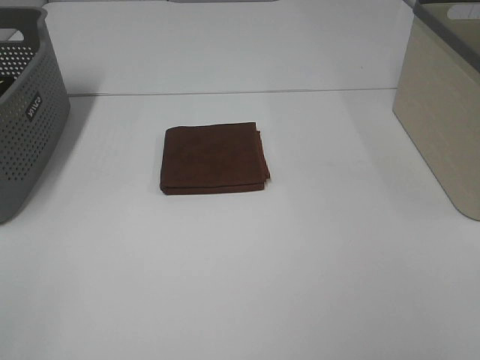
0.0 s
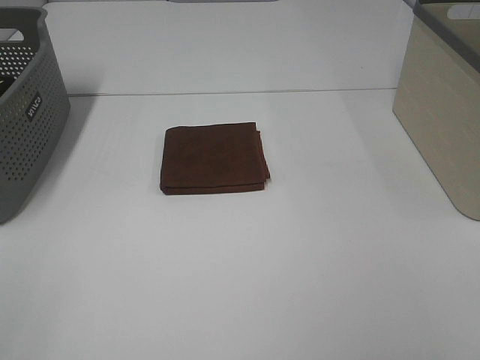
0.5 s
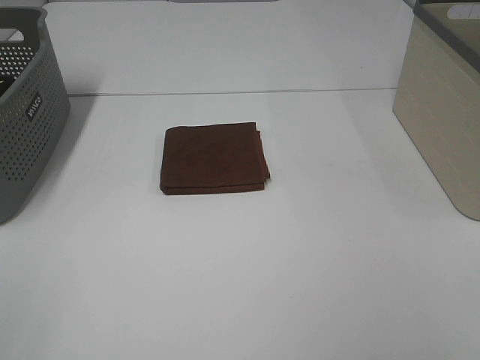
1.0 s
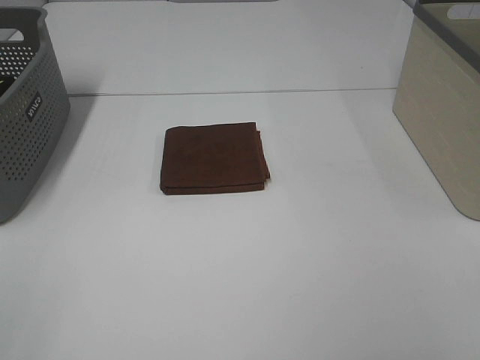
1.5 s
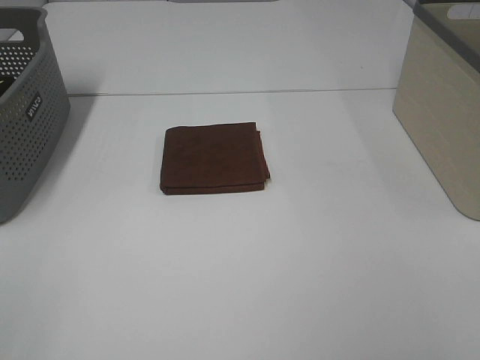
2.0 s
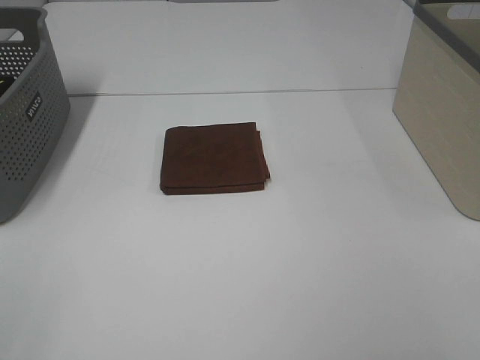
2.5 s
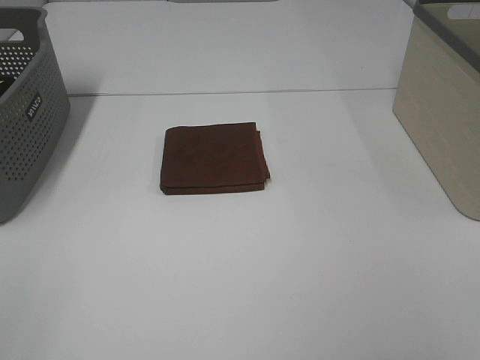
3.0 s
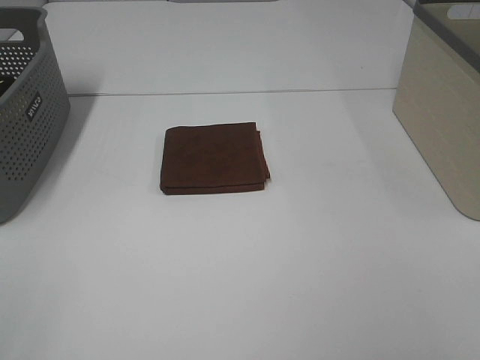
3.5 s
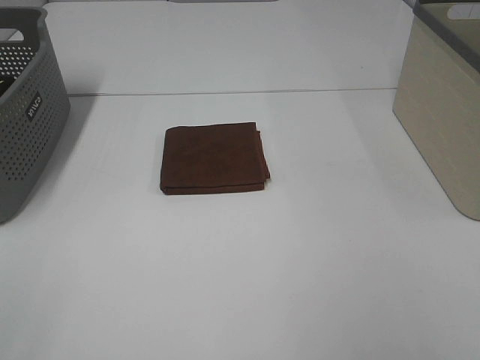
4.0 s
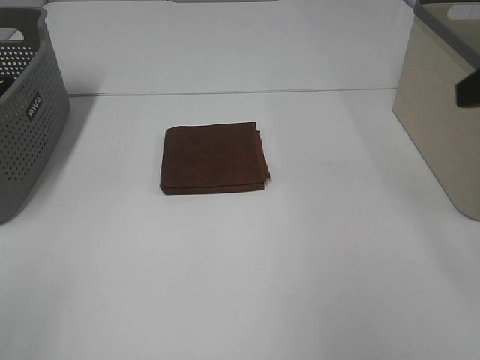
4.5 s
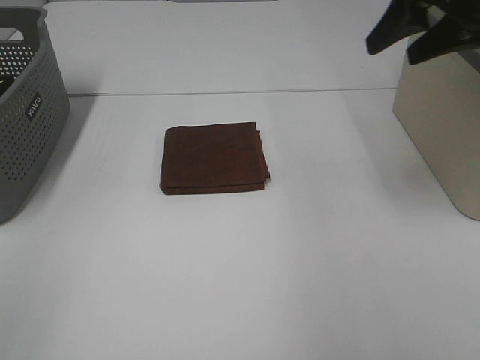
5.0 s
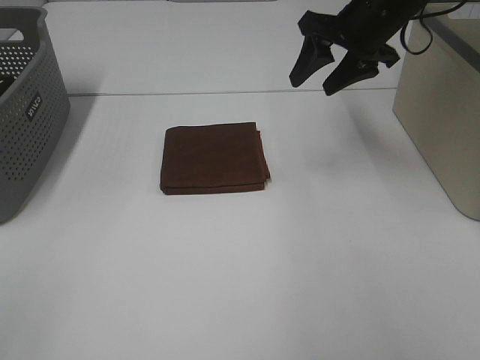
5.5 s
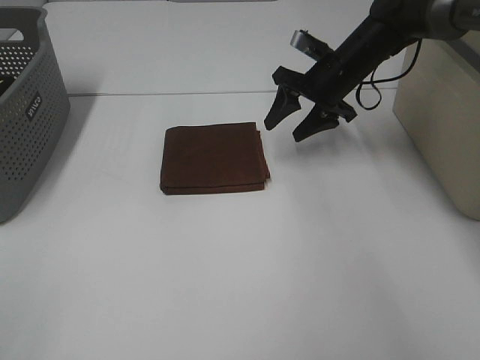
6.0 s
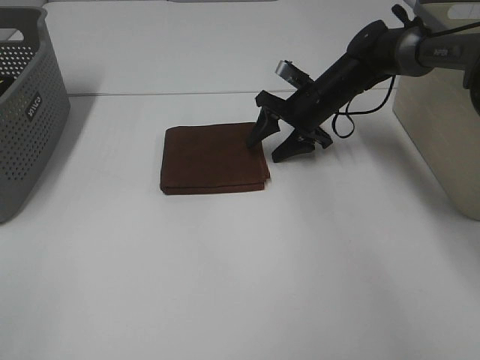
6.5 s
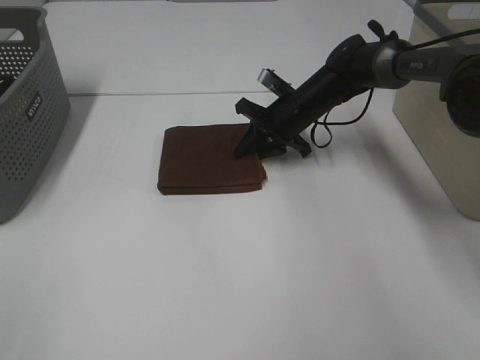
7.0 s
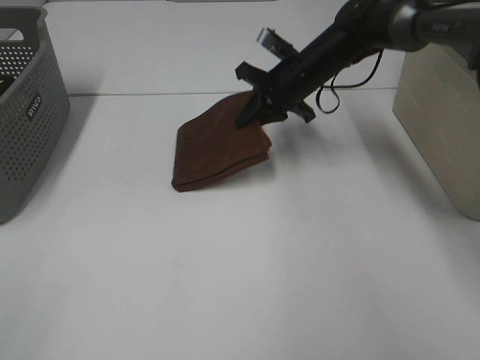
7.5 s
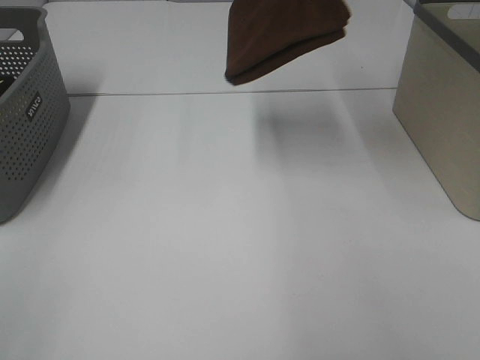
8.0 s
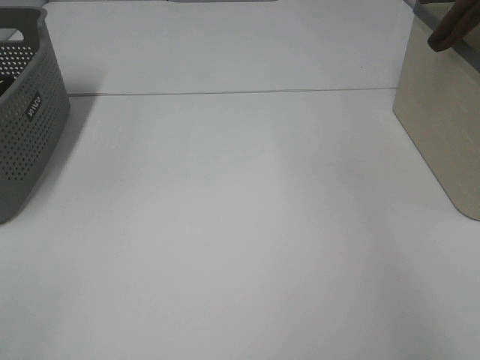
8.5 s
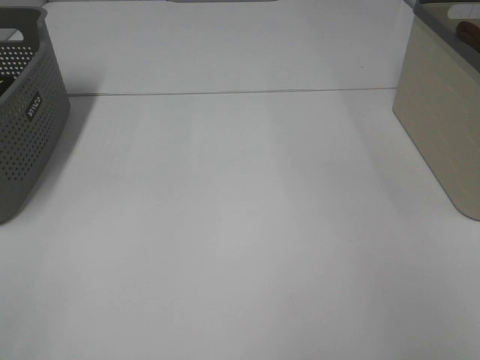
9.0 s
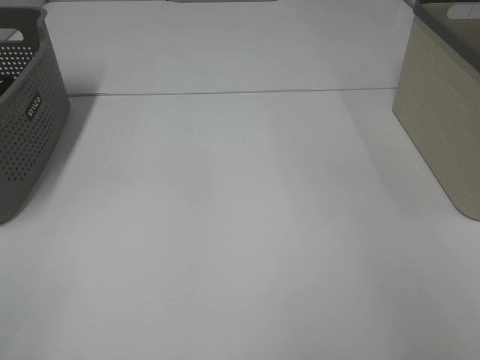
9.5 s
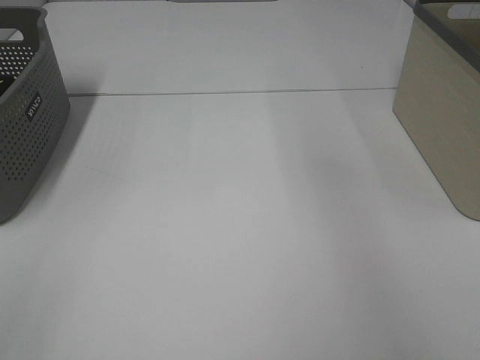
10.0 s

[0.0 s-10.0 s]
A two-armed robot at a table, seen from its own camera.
Step, 0.0 to 7.0 s: Right hand: grab the folded brown towel.
Step, 7.5 to 9.5 s: Right hand: place the brown towel in right basket.
0.0 to 2.0 s: Both grippers stay about where they are.
4.0 to 6.0 s: The right gripper travels forward by roughly 40 cm.
6.0 to 8.0 s: The right gripper travels upward by some 20 cm, and closes up.
8.0 to 10.0 s: The right gripper moves to the right, roughly 15 cm, and opens its fingers.

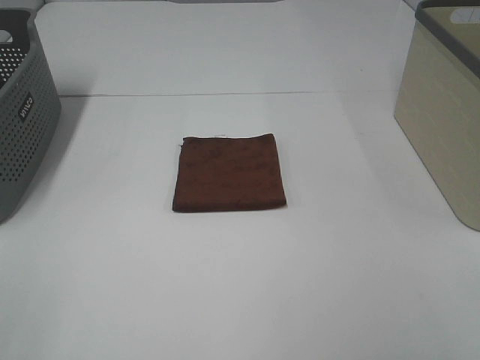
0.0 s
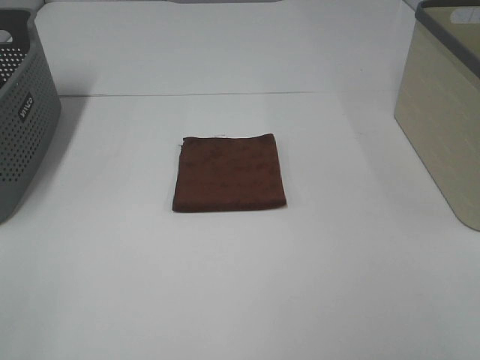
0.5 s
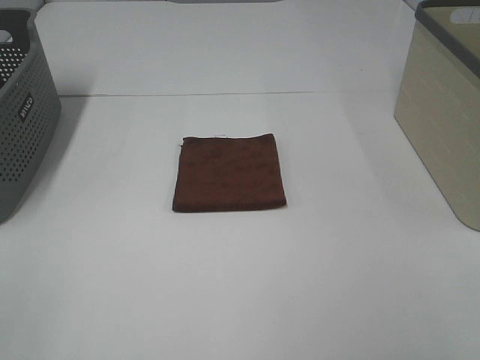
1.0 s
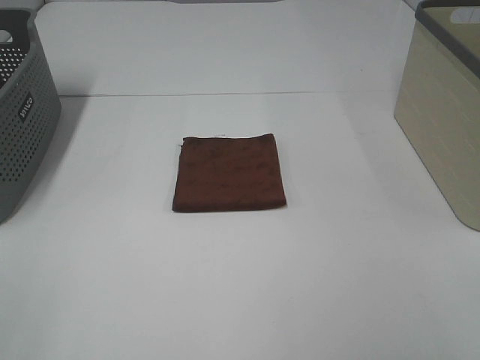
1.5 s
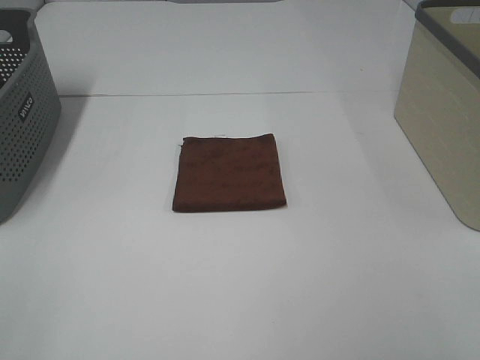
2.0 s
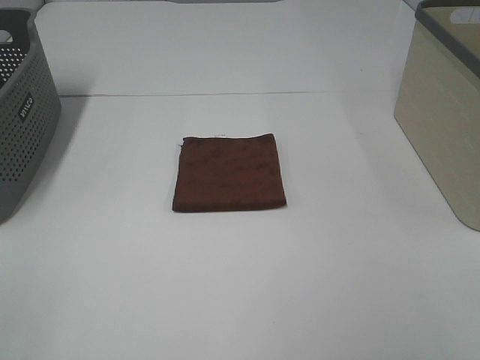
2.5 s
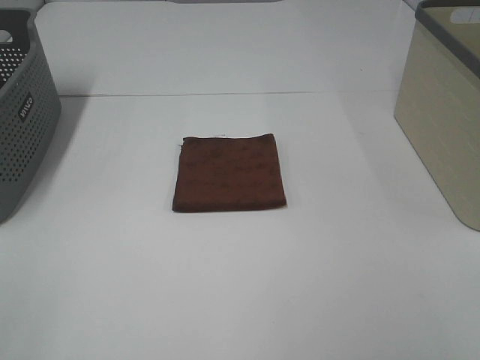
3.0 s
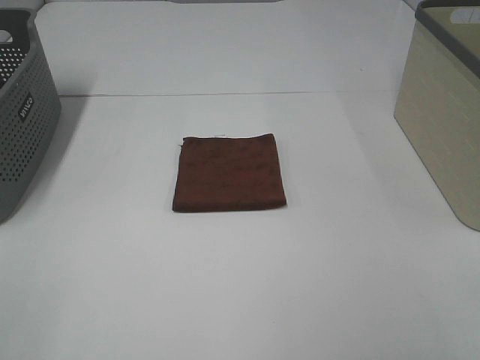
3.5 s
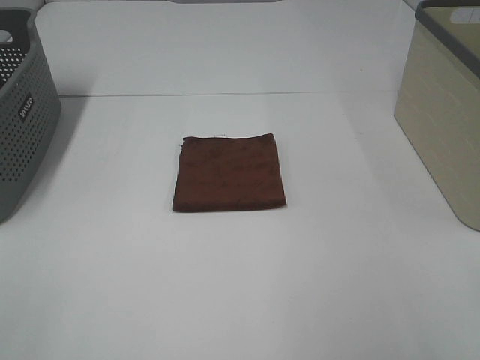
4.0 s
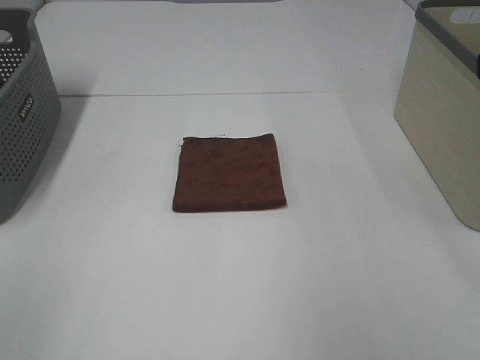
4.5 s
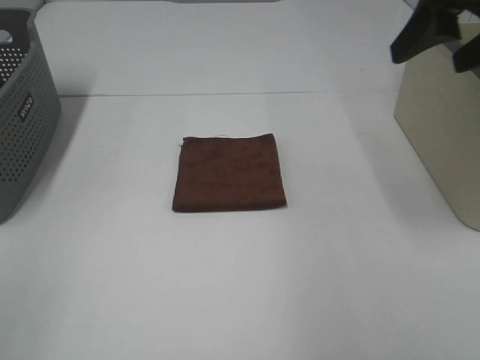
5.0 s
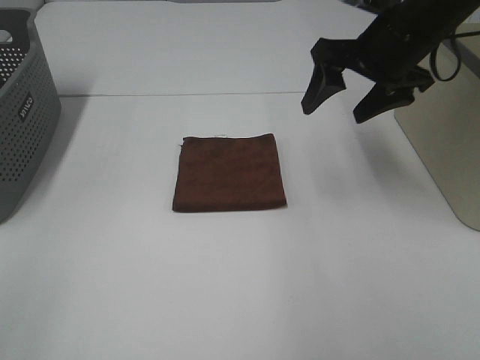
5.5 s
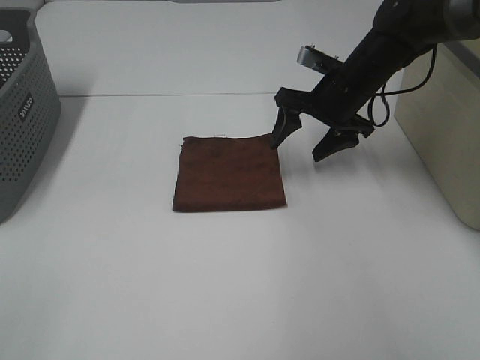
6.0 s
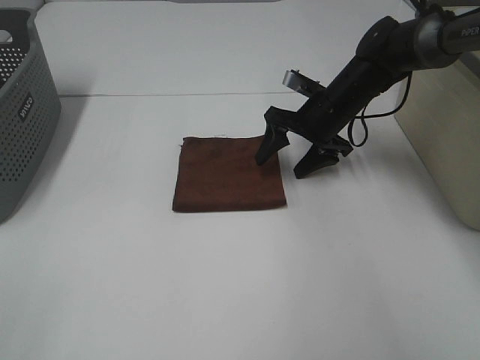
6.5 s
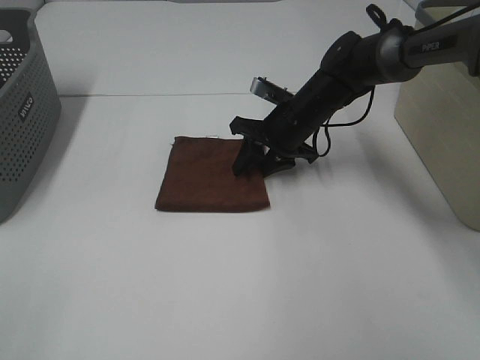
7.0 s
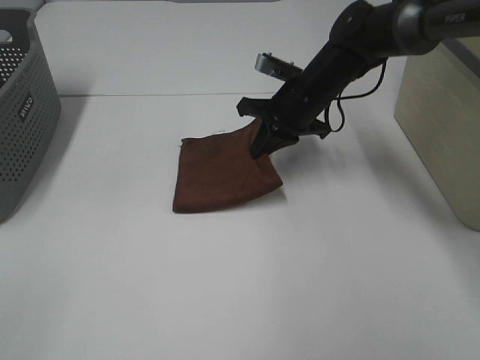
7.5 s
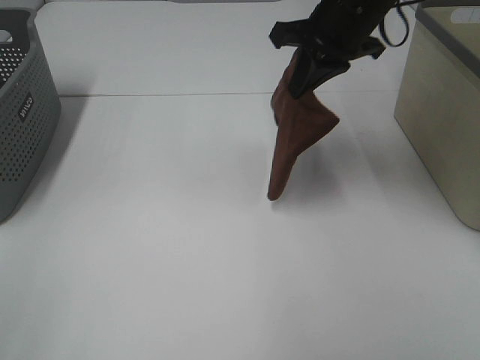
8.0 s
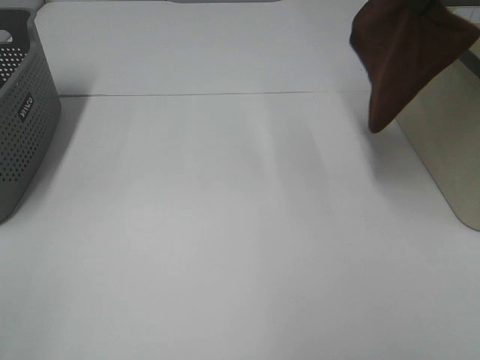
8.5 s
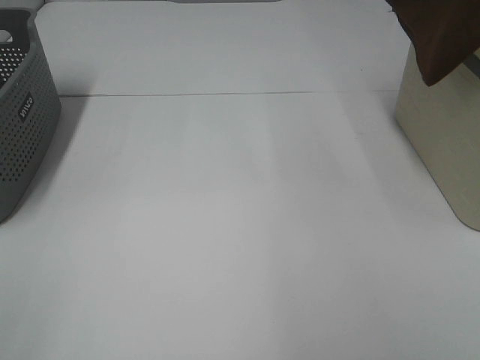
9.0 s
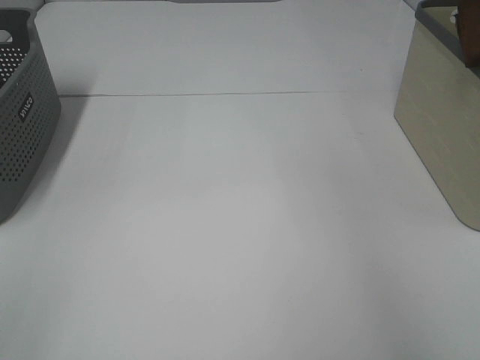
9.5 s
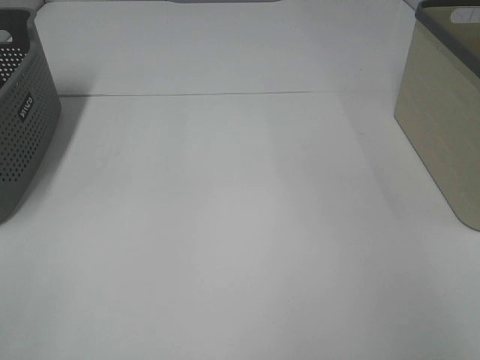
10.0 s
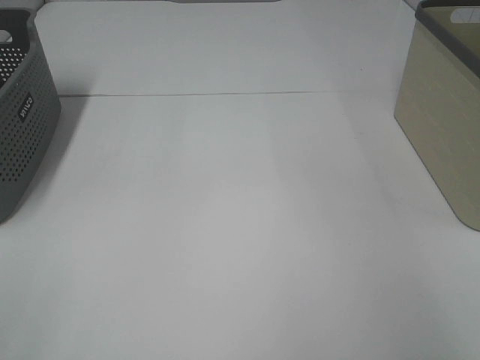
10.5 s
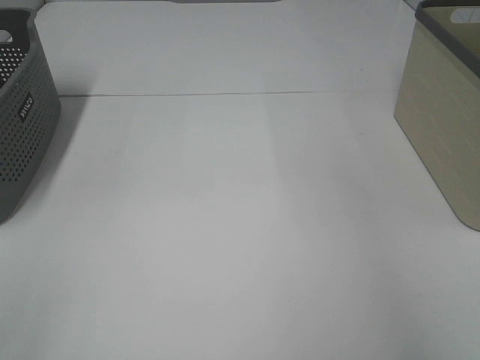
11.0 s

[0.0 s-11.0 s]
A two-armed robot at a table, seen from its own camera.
Step, 0.0 to 7.0 s: Right hand: grab the folded brown towel.
Step, 7.5 to 10.0 s: Right hand: place the brown towel in right basket.
0.0 to 3.5 s: Both grippers stay put.
3.5 to 5.5 s: The right gripper shifts roughly 40 cm forward.
5.5 to 7.5 s: The right gripper travels downward, to the left and forward by about 15 cm, and closes up.
7.5 to 9.0 s: The right gripper heads upward and to the right, covering about 30 cm.
9.0 to 11.0 s: The right gripper heads to the right, covering approximately 15 cm, and opens its fingers.

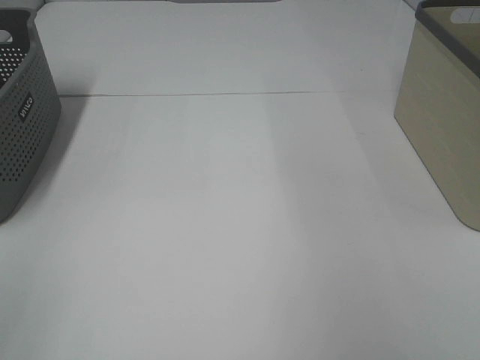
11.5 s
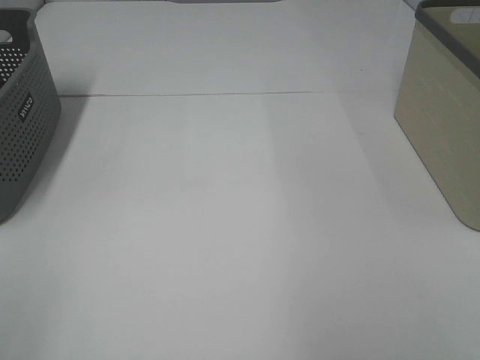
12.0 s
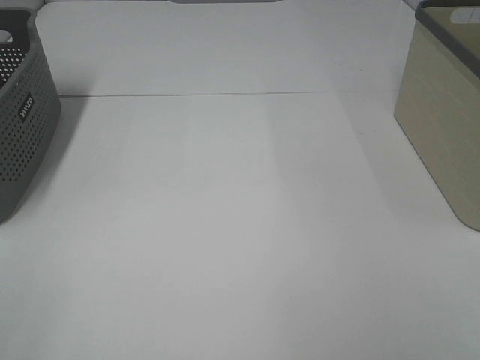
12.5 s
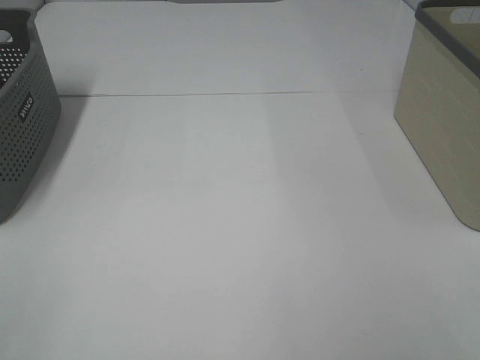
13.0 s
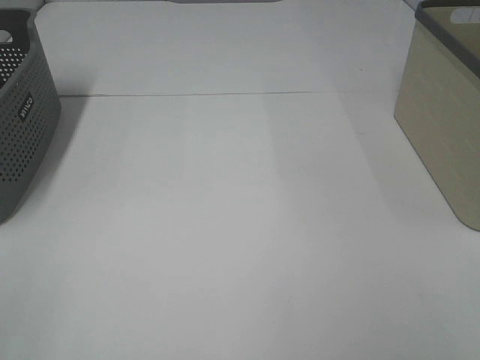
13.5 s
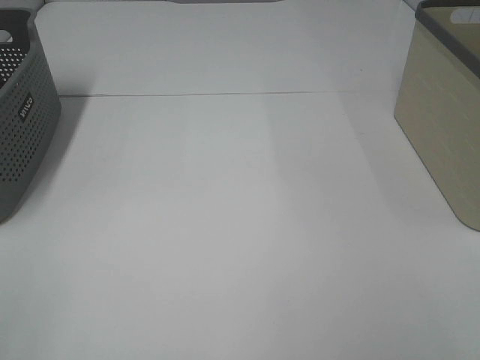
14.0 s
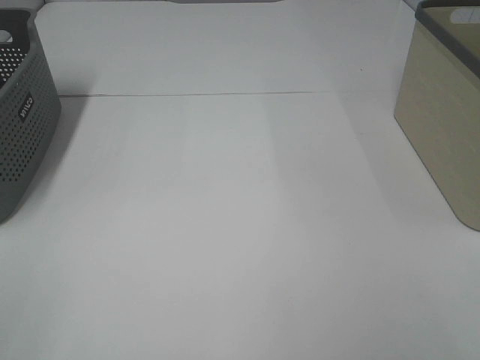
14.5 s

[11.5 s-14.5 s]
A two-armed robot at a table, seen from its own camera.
13.0 to 14.5 s: Both grippers stay about where they are.

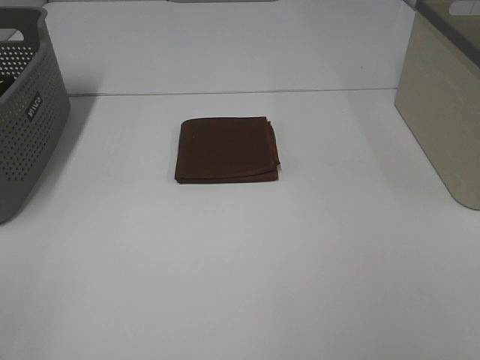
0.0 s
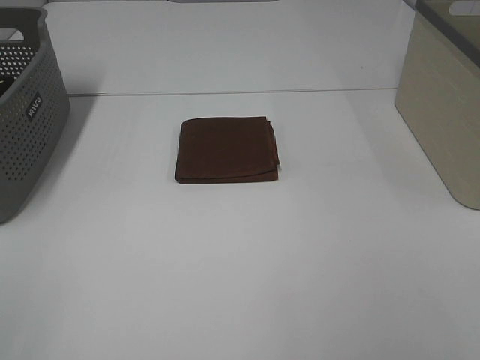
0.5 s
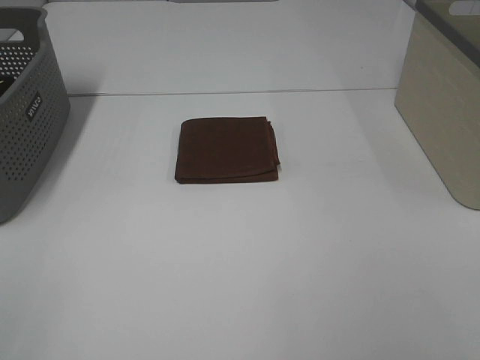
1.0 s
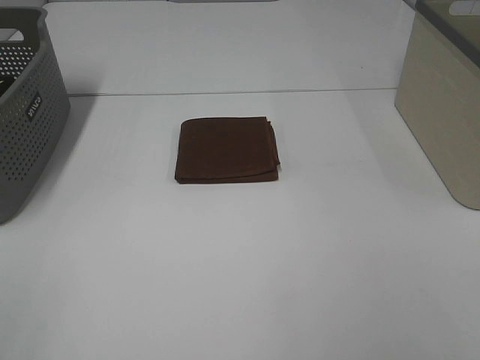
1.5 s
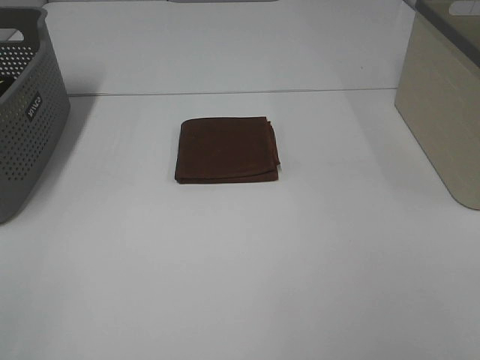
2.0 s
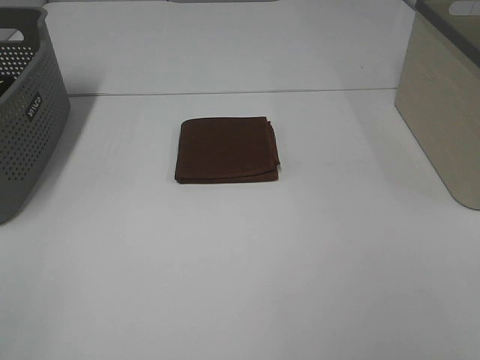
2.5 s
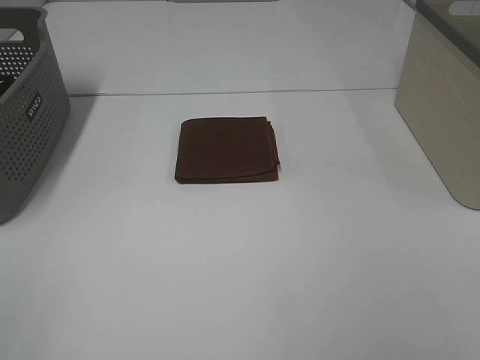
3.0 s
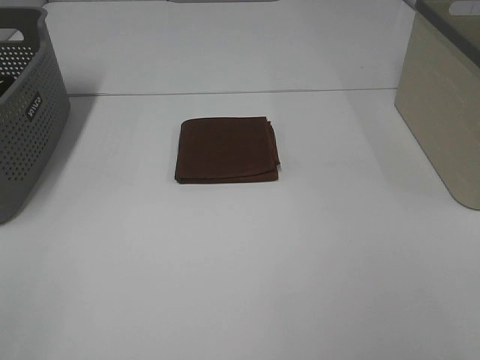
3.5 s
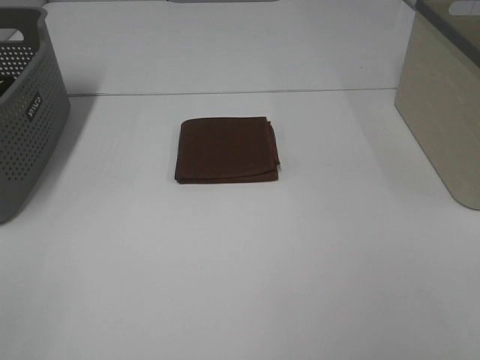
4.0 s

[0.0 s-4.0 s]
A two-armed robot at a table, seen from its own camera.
0.0 to 4.0 s: Neither gripper changes place.
